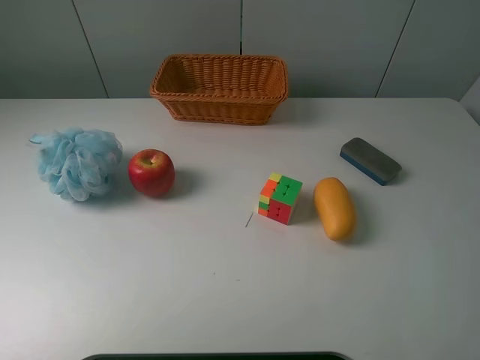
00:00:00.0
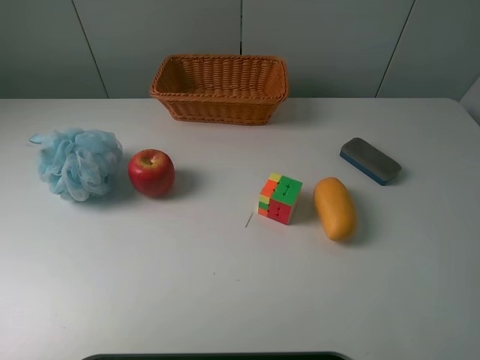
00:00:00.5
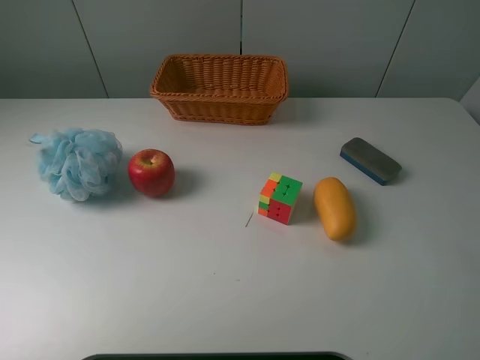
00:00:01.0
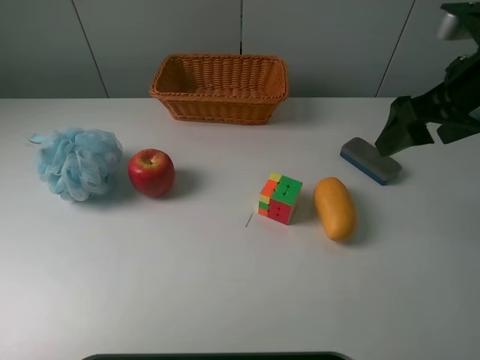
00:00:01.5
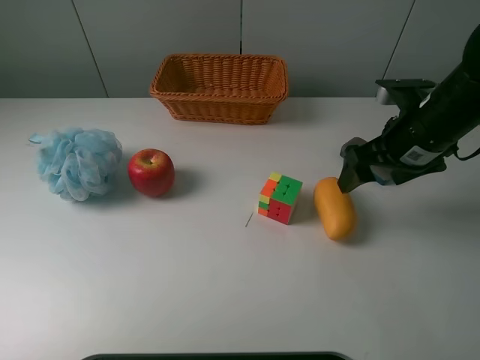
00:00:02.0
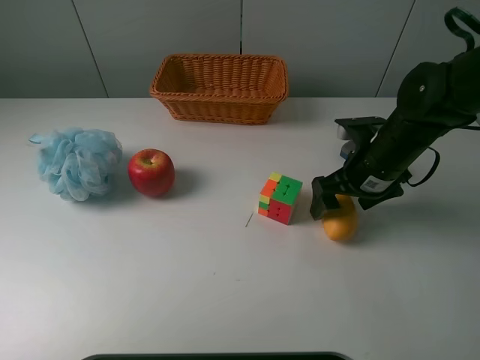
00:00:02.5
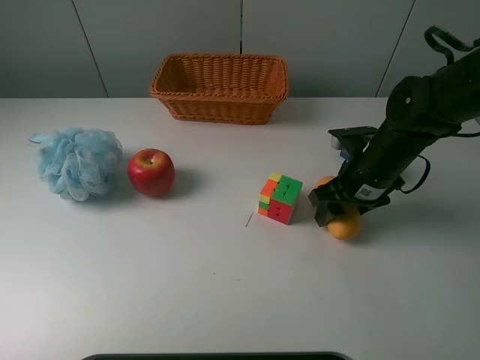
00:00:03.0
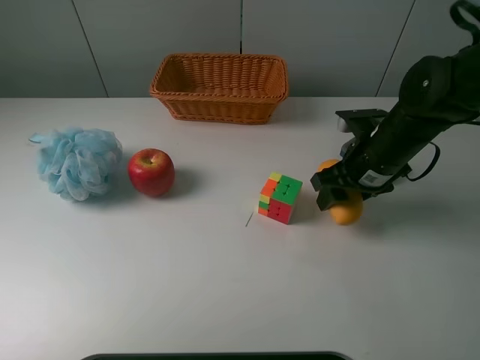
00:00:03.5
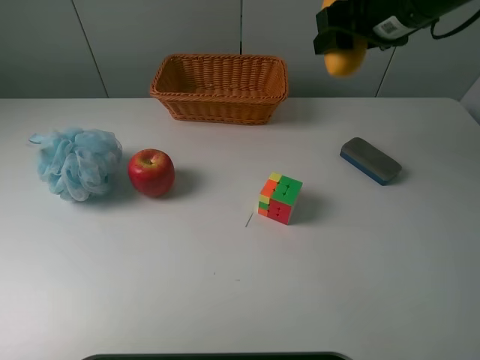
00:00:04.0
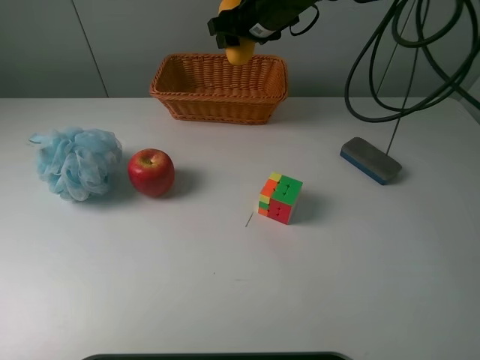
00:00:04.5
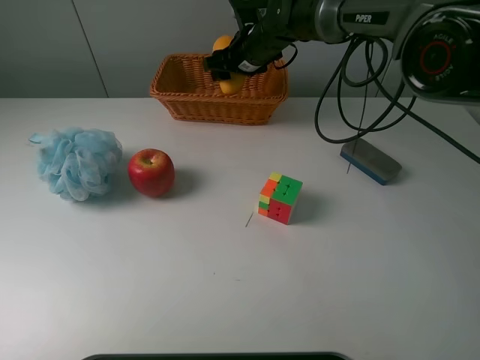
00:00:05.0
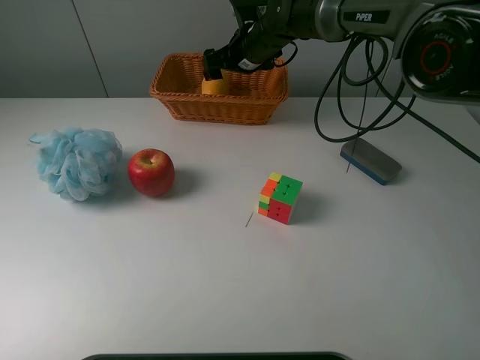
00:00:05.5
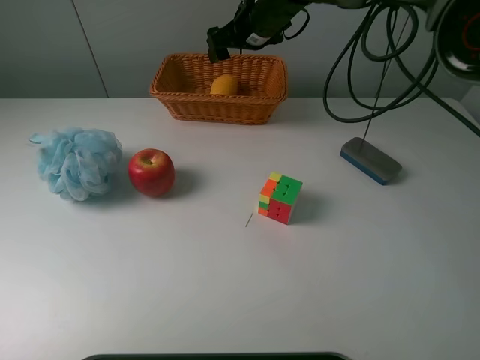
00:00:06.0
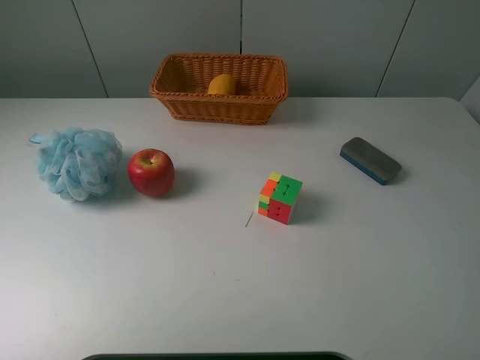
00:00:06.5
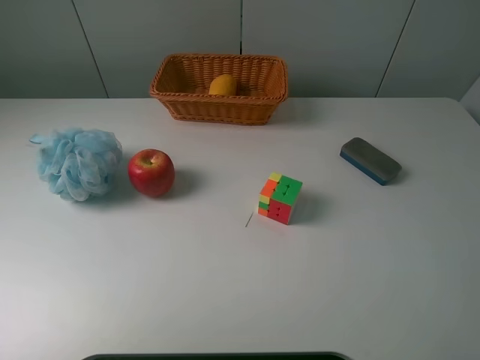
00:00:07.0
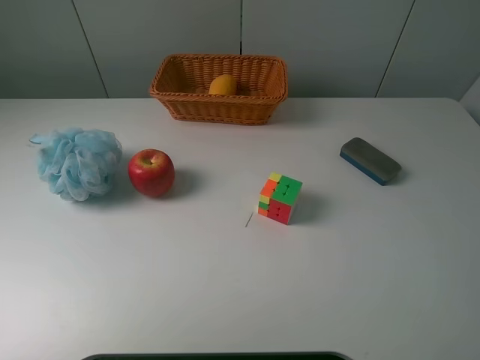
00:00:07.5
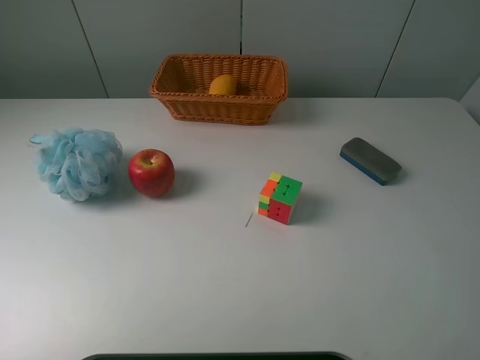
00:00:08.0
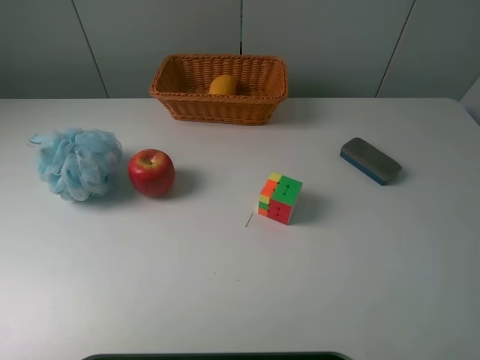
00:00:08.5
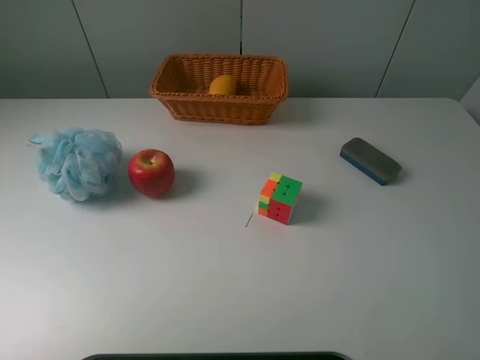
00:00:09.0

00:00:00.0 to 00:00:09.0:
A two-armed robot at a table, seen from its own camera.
Task of the whole recording: use a picker to grab the item closest to the cube and place it in the basket.
Step, 00:00:00.0 to 00:00:03.0: Grasp the mango with the right gripper.
Step, 00:00:03.5 to 00:00:05.5: Place the mango into the basket with the right gripper.
00:00:00.0 to 00:00:02.0: The right gripper shifts approximately 25 cm forward.
00:00:02.0 to 00:00:04.5: The right gripper moves forward and to the left, about 25 cm, and closes.
00:00:04.5 to 00:00:07.0: The right gripper heads upward, backward and to the right, covering roughly 50 cm, and opens.
